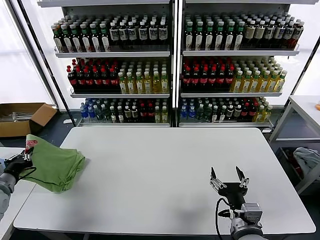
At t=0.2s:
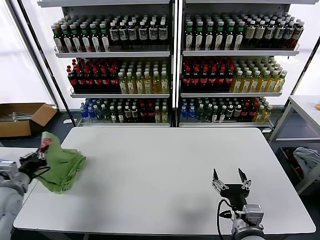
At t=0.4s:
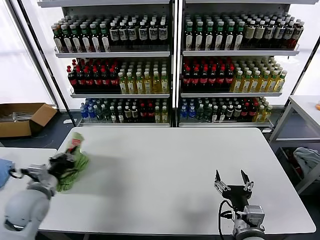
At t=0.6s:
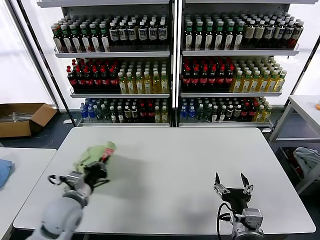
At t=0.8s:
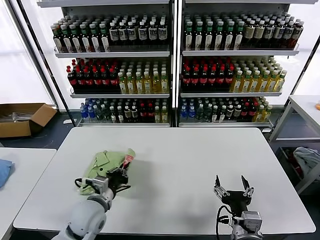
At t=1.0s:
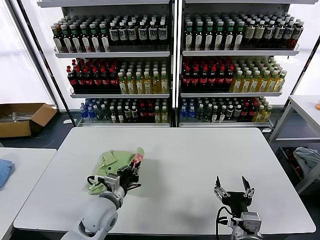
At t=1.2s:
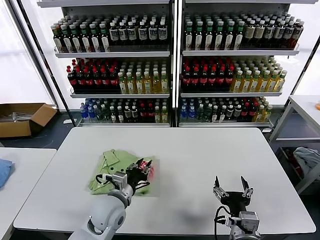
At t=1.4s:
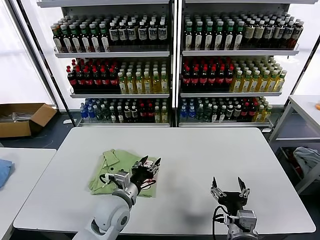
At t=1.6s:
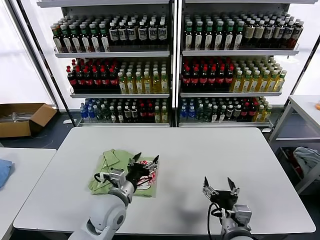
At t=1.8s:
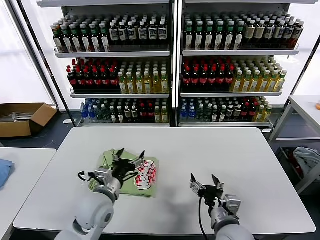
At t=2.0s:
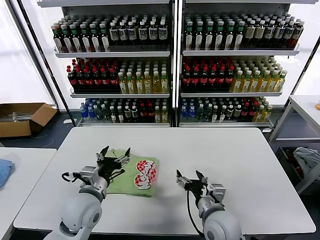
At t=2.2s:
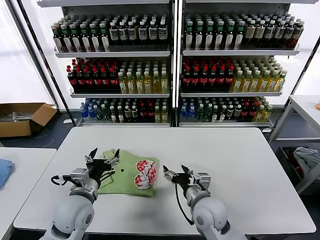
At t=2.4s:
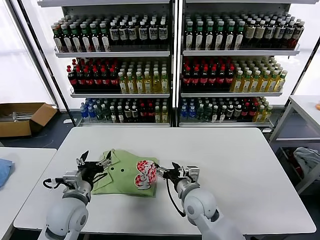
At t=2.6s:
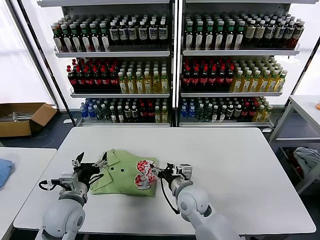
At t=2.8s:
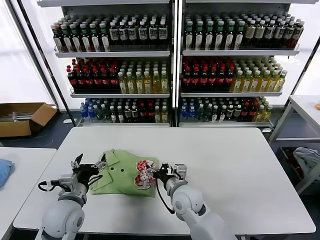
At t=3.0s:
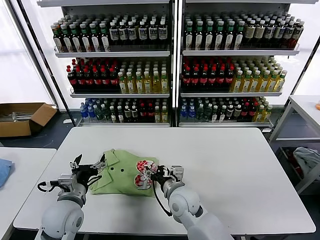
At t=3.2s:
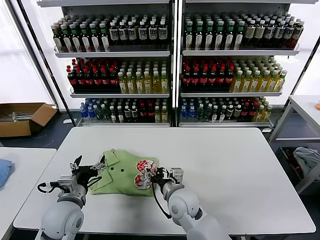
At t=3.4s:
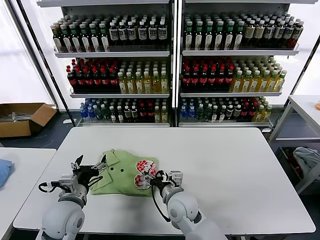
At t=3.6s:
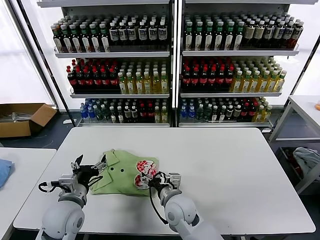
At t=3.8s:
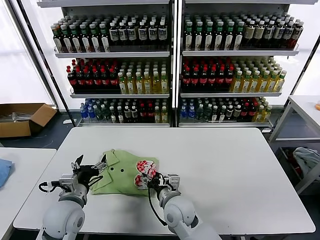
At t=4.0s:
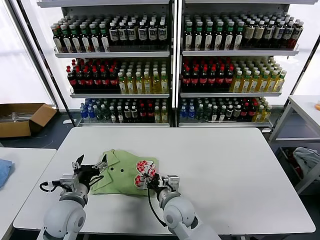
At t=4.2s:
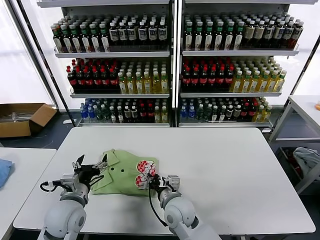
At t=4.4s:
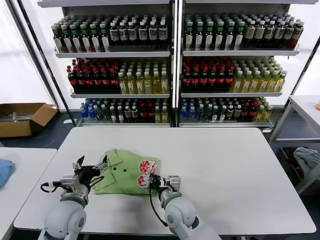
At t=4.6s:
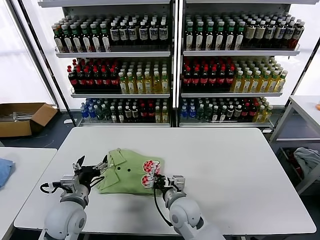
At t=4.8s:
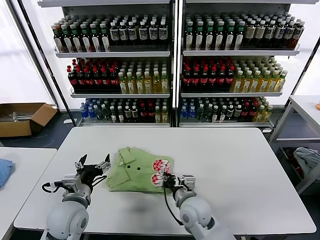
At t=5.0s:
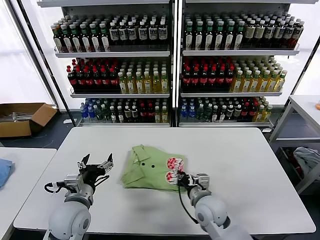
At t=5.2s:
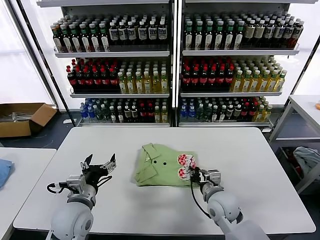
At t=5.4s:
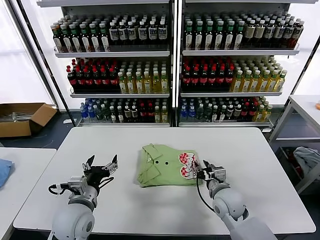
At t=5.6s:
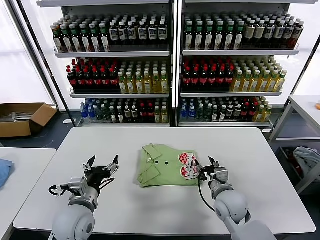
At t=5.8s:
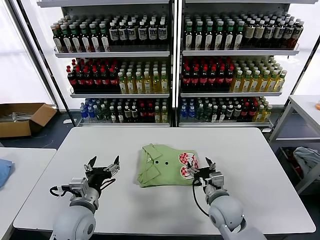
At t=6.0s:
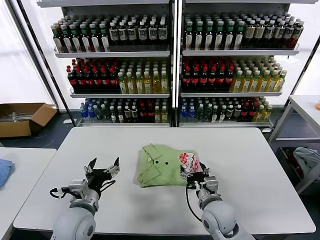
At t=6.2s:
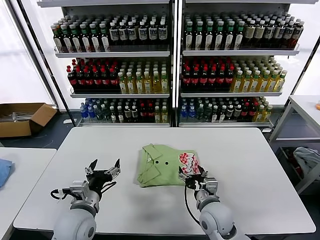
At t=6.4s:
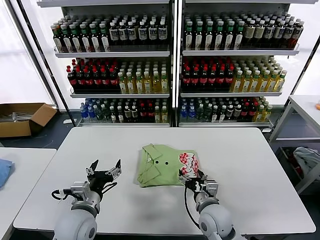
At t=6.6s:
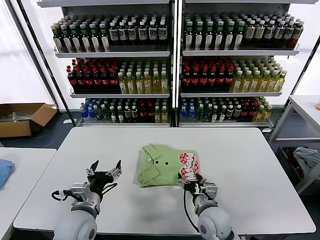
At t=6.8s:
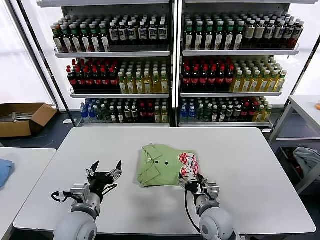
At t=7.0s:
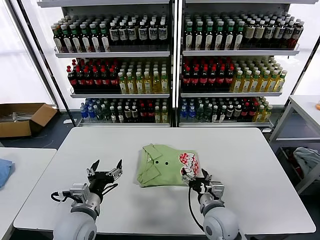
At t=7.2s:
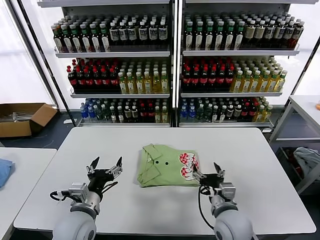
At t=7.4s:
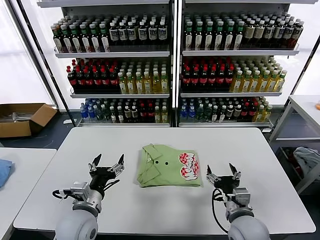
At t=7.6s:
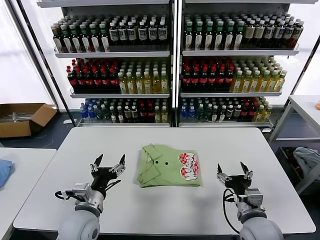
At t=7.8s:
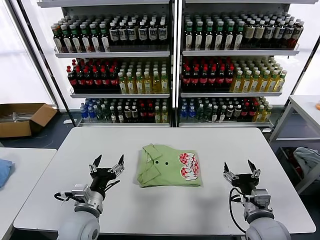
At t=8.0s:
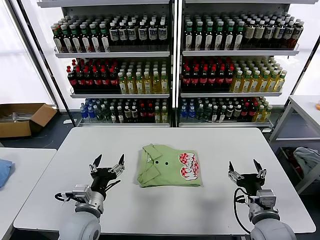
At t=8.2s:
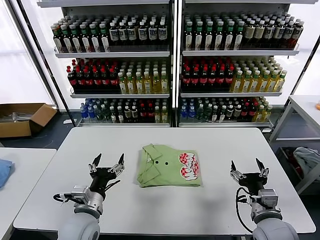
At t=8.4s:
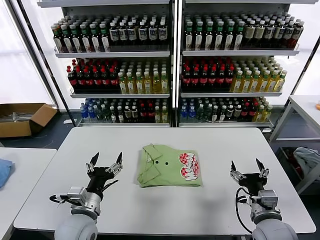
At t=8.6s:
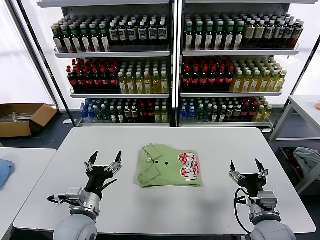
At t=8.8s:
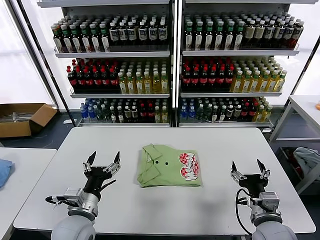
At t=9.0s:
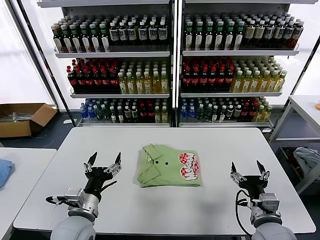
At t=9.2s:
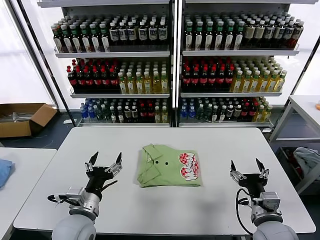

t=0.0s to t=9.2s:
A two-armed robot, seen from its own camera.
Task of the whole recording: fold and organize the clothes.
Step, t=1.4s to t=7.0s: Drag the clothes to the center of the table.
t=0.0s to t=1.6s: The left gripper moves to the right, roughly 35 cm, and opens.
t=1.6s to t=3.0s: The right gripper moves forward and to the left, about 20 cm, while the left gripper moves to the left, roughly 10 cm.
t=3.0s to t=4.6s: The right gripper closes its fingers.
t=4.6s to t=6.2s: The right gripper travels to the right by approximately 10 cm, and opens its fingers.
t=6.2s to t=7.6s: The right gripper is displaced to the right and backward by roughly 10 cm.
t=7.6s to t=9.2s: The grippers make only small movements.
